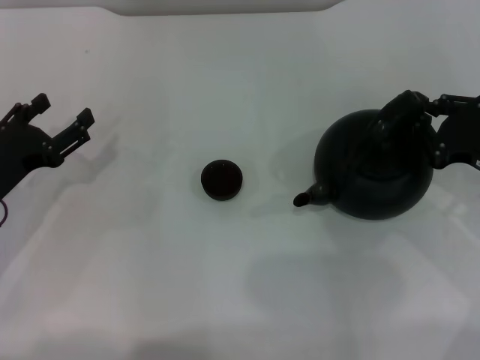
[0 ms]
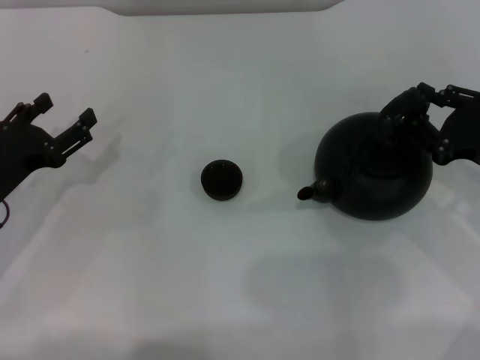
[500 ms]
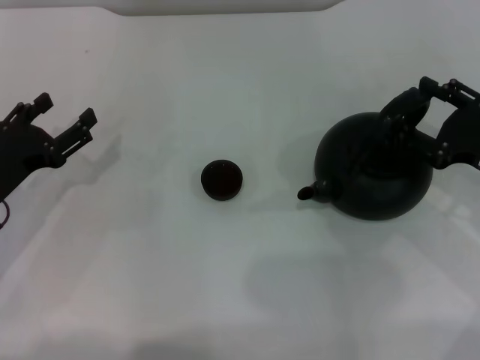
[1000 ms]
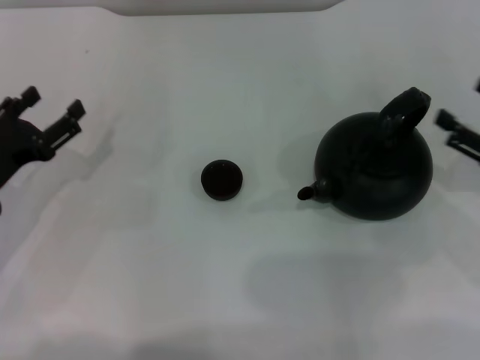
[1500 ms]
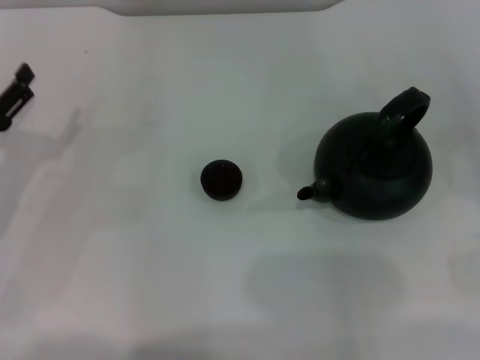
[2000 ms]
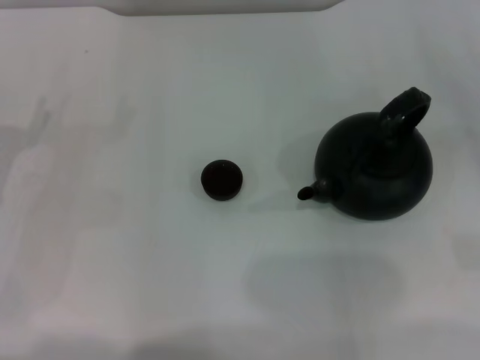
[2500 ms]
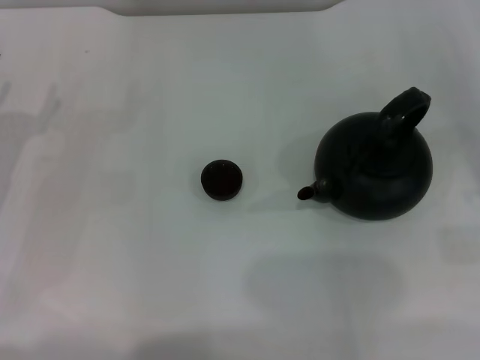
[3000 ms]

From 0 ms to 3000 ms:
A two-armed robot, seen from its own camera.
Task of the whole recording: Grasp the handle of the teapot with one hand and pour tea into the teacup.
From 0 ms to 1500 ms: The right gripper opens its fingers.
From 1500 ms to 3000 ms: The right gripper goes some 5 cm to the right.
